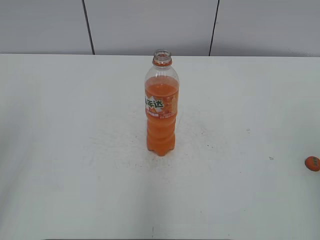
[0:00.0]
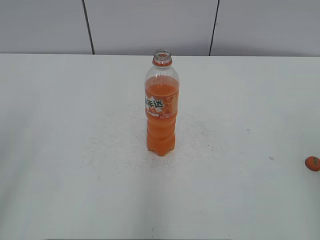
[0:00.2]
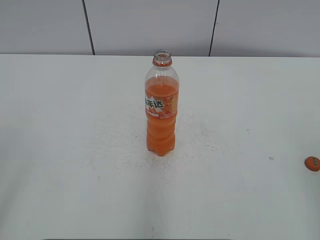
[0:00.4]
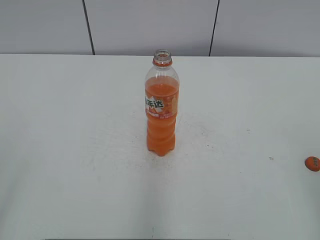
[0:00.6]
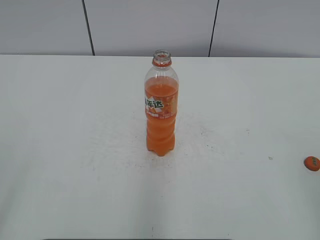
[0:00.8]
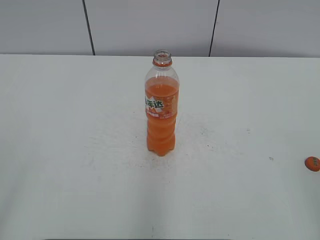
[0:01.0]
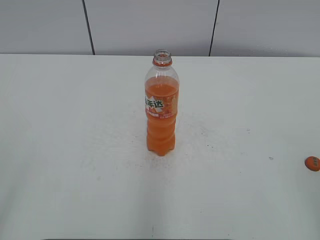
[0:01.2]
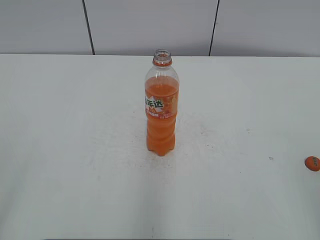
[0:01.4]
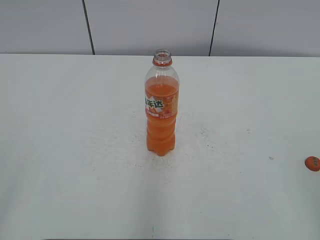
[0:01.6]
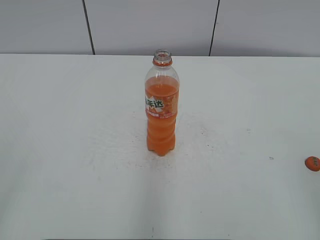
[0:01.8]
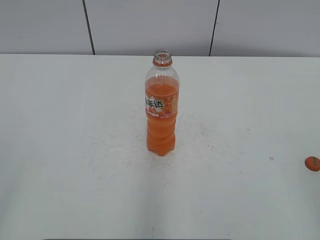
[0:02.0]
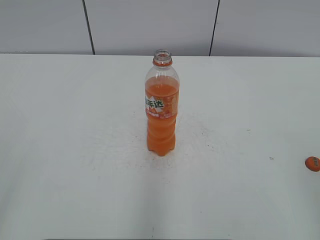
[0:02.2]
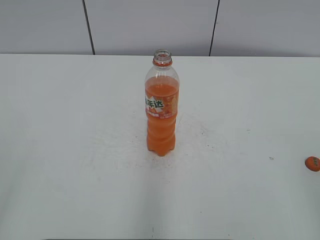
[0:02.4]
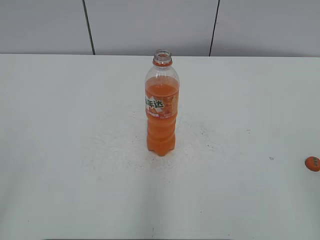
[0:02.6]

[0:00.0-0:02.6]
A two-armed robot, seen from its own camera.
0:01.2 to 0:02.6: Neither gripper changes place.
